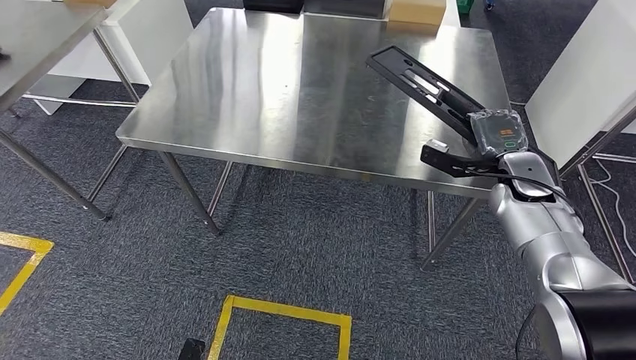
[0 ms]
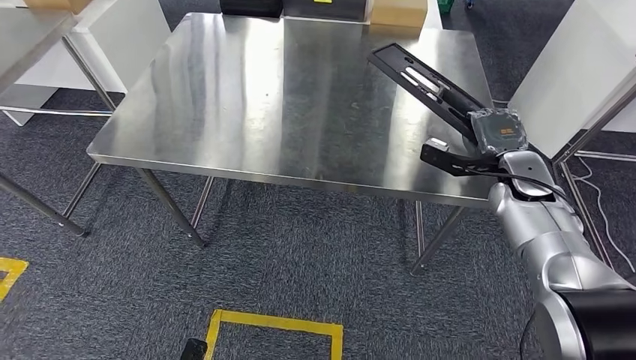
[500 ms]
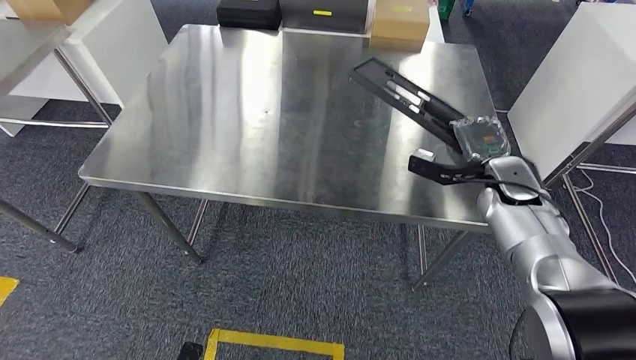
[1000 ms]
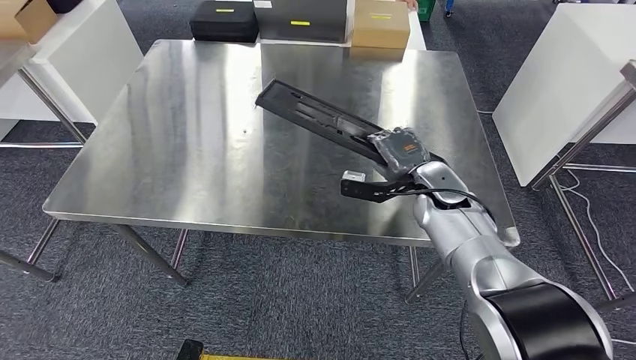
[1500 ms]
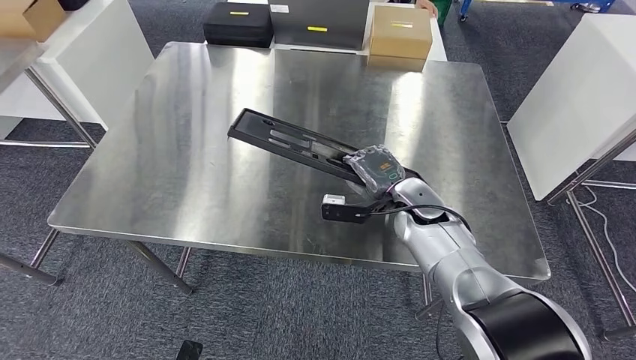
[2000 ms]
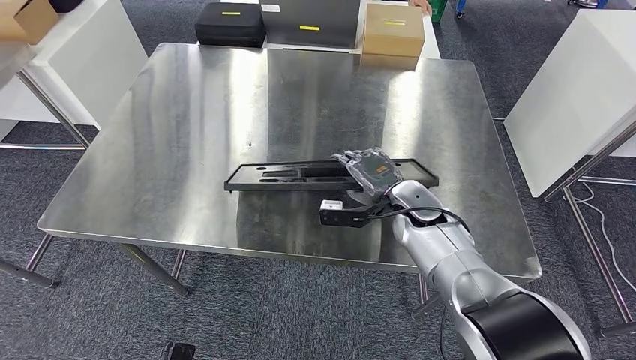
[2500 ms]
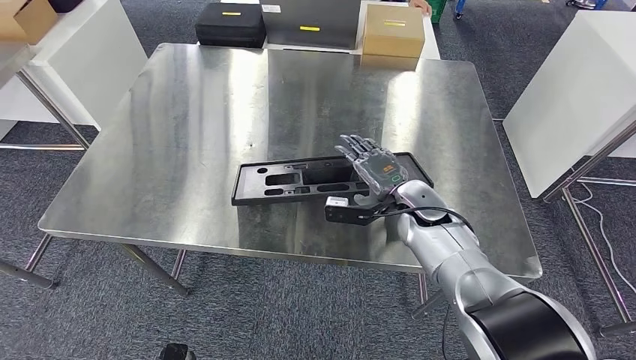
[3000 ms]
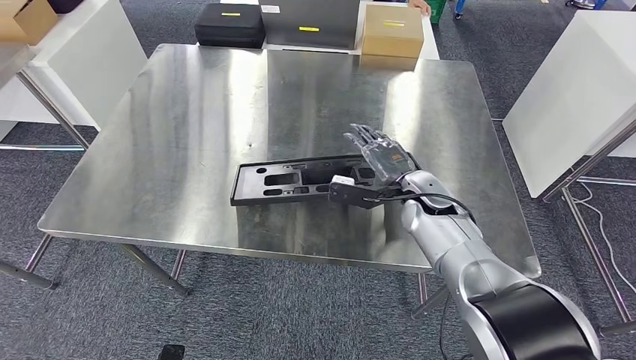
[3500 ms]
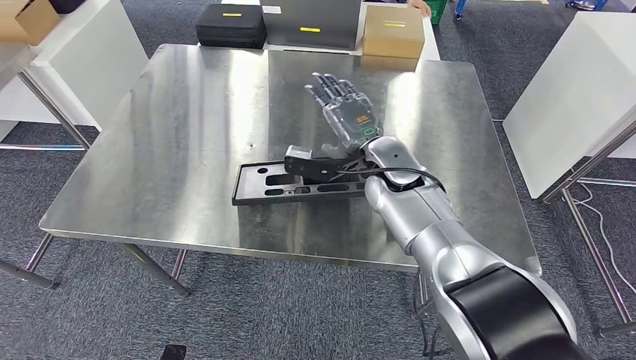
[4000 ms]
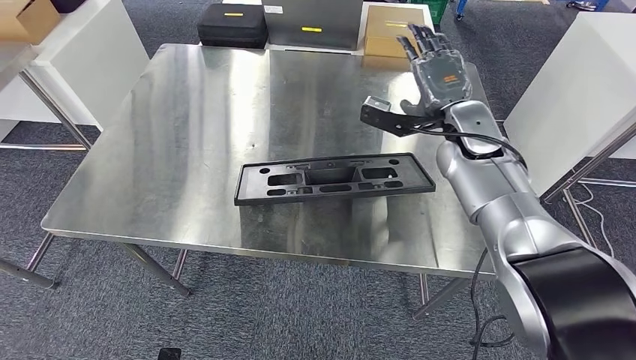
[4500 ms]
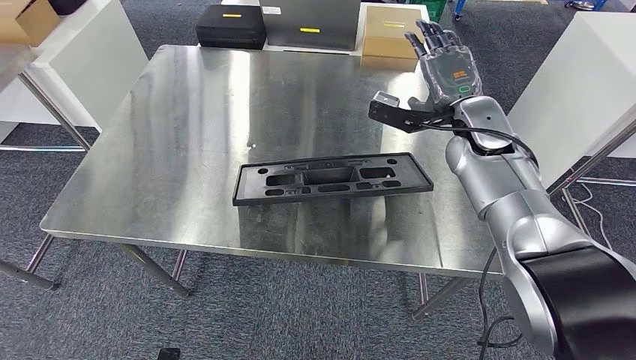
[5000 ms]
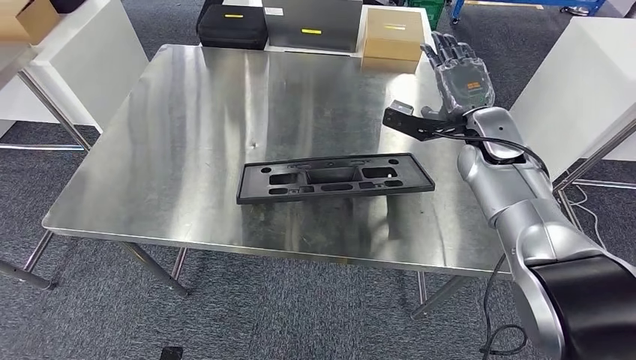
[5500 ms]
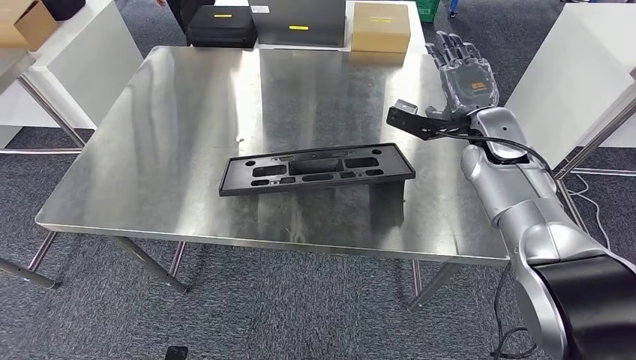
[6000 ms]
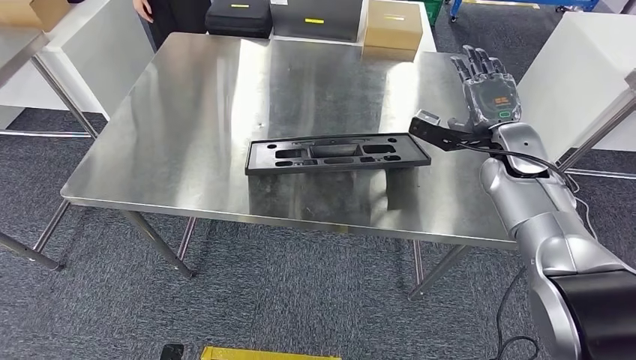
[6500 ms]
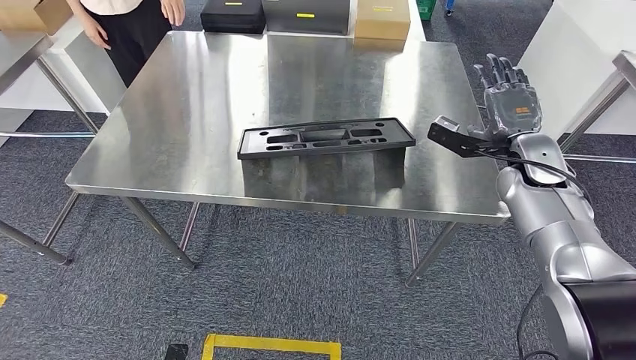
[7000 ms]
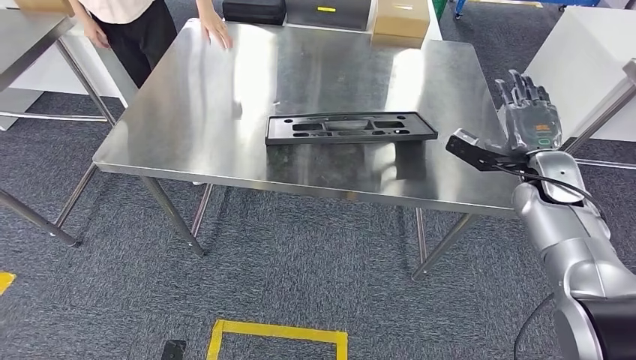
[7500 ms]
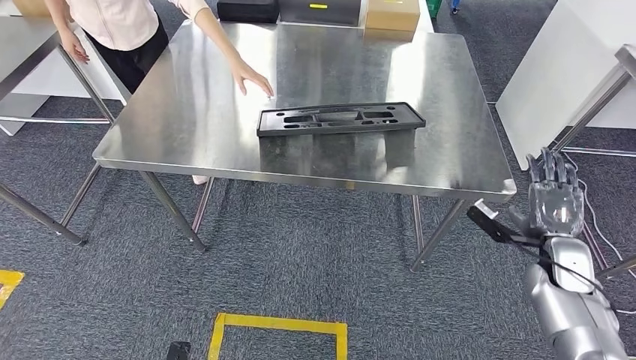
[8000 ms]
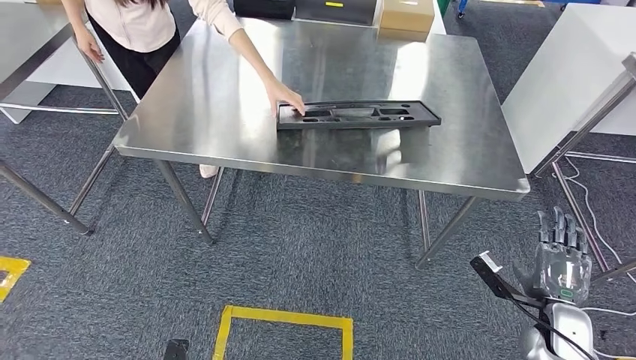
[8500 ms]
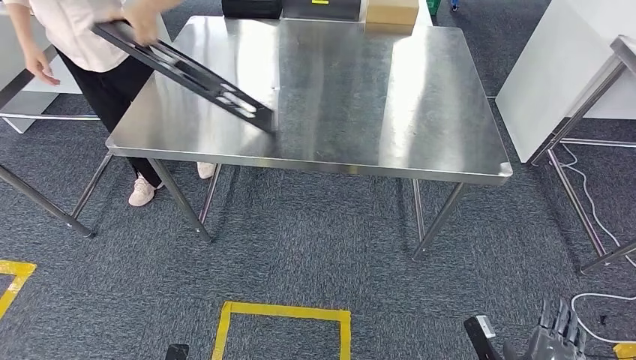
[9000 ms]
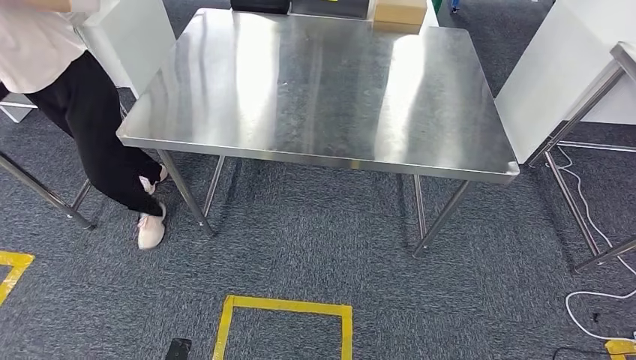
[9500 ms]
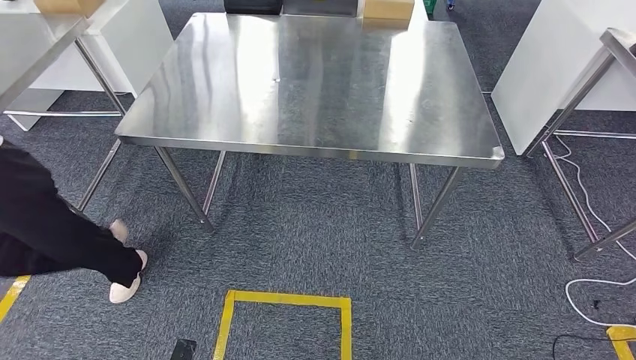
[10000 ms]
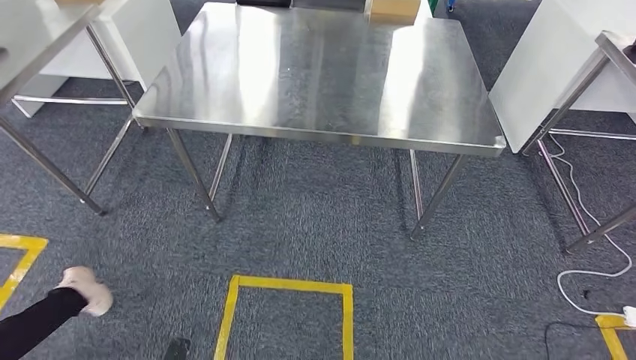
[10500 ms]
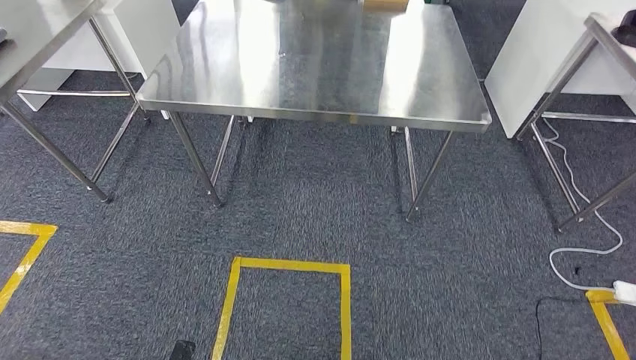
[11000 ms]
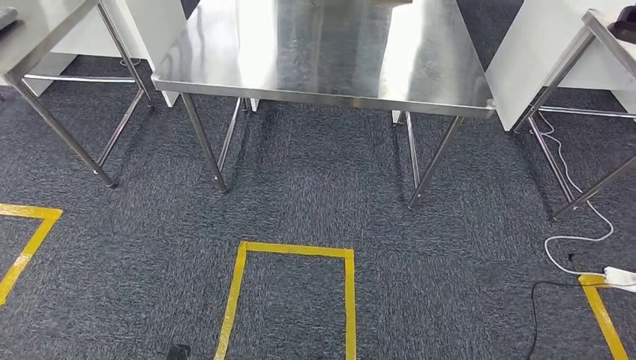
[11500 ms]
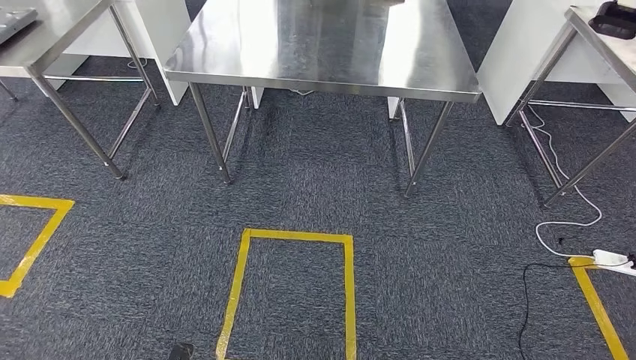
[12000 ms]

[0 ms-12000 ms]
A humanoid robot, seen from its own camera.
Step, 0 ms to 5000 ms: Insert the large material into the corresponding slot on the workbench.

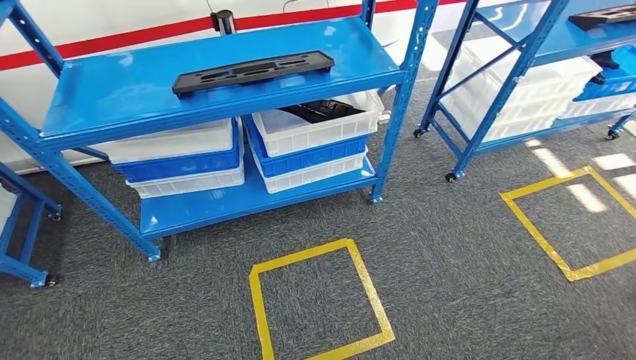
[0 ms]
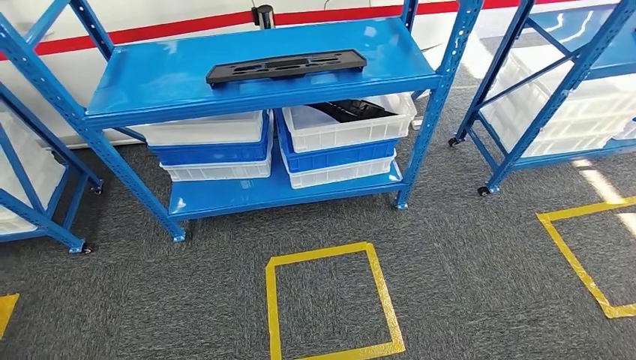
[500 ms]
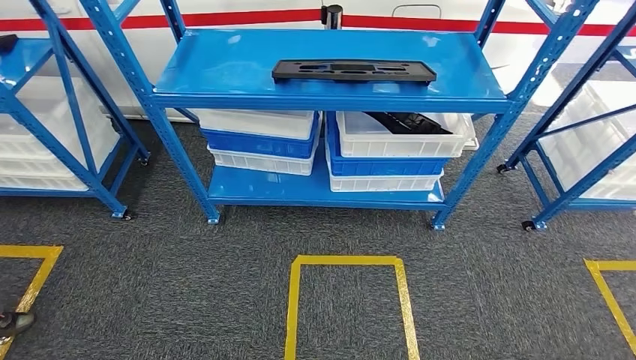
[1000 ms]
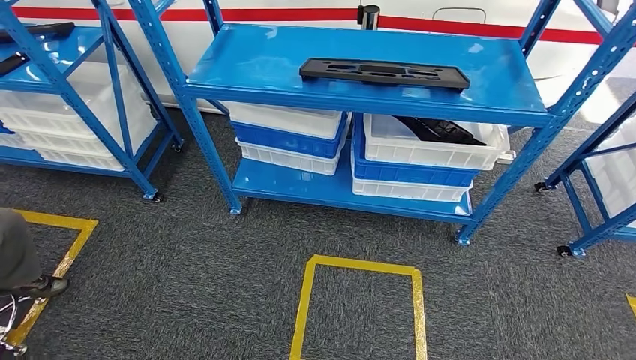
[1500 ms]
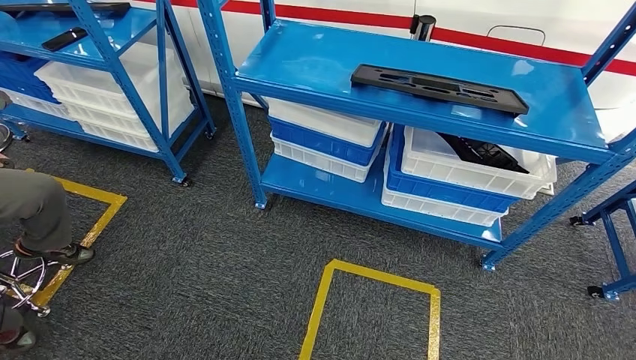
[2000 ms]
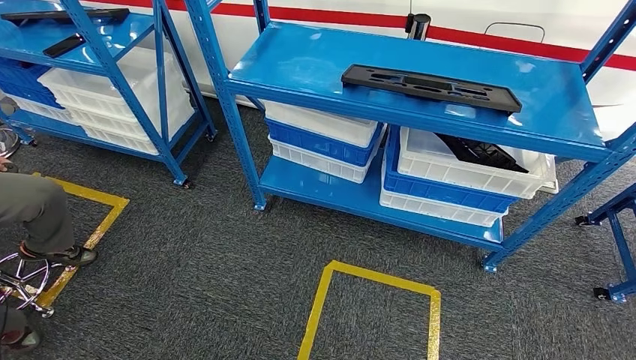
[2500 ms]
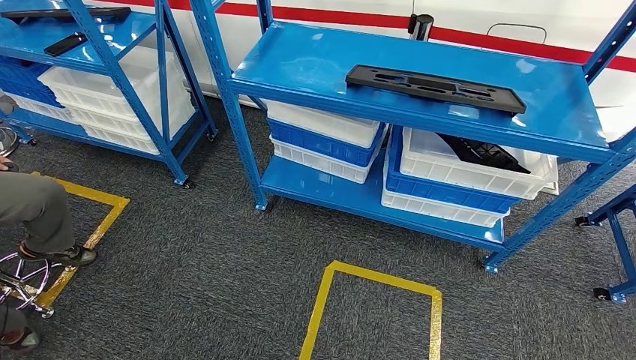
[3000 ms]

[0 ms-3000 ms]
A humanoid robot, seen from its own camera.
Step, 0 ms to 3000 ms: Move to the initial position of the shelf.
